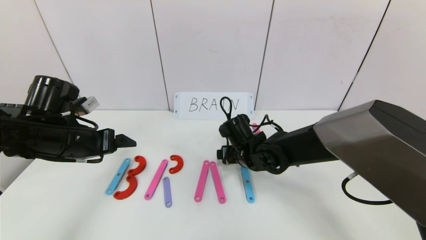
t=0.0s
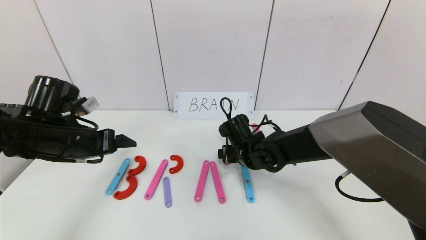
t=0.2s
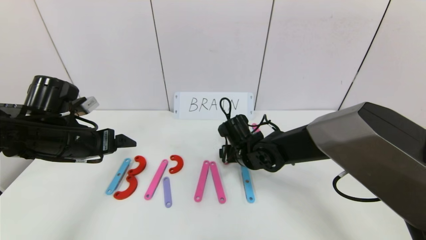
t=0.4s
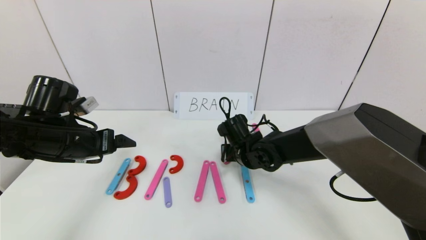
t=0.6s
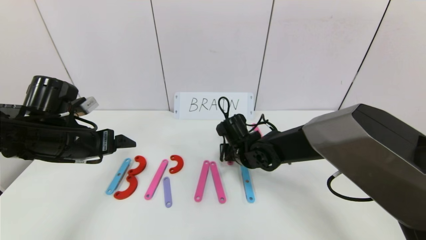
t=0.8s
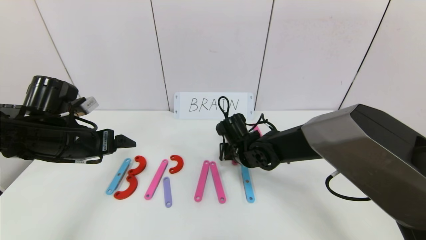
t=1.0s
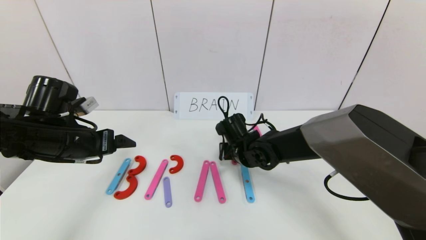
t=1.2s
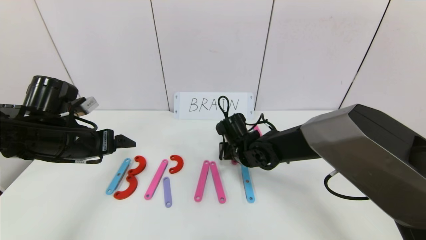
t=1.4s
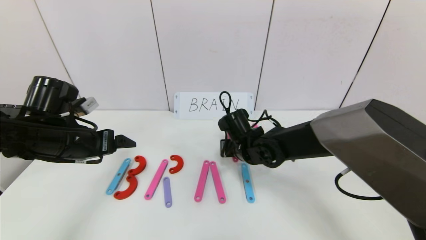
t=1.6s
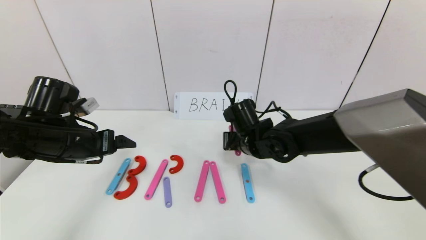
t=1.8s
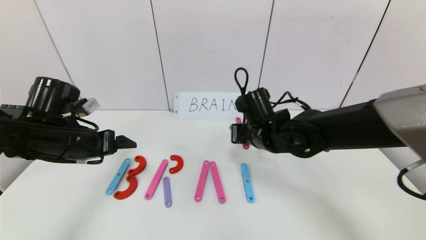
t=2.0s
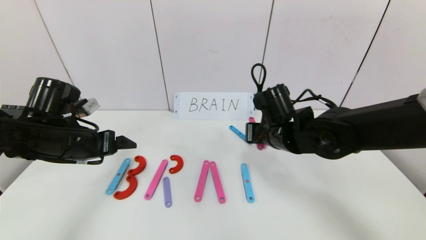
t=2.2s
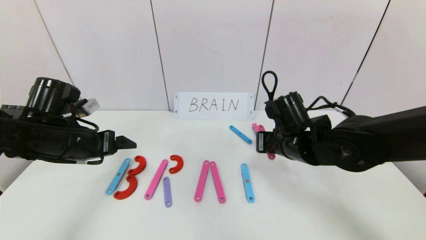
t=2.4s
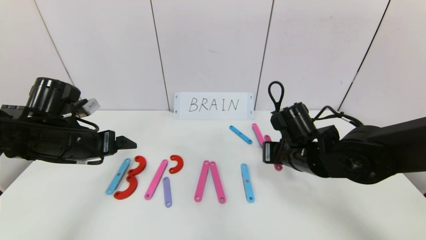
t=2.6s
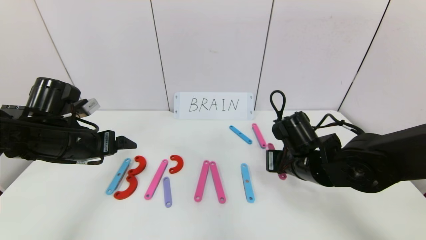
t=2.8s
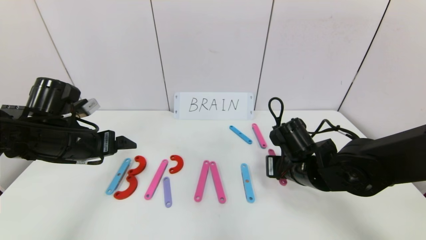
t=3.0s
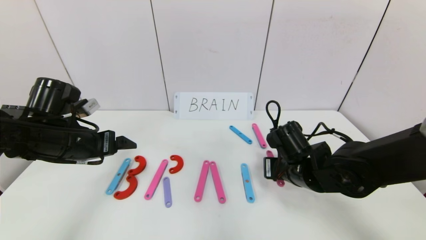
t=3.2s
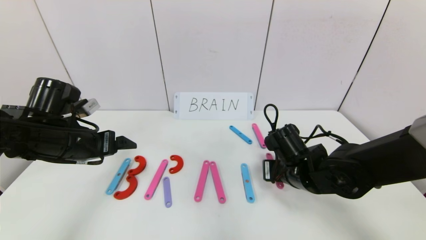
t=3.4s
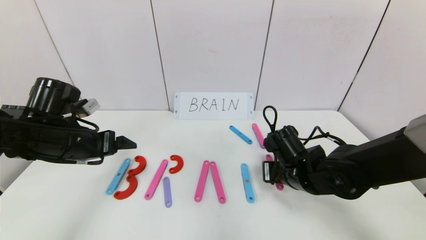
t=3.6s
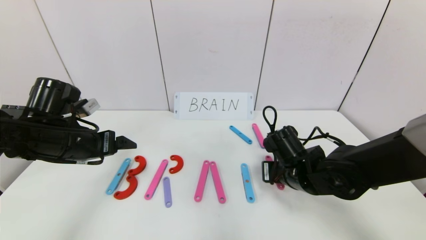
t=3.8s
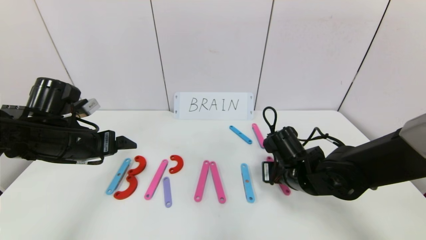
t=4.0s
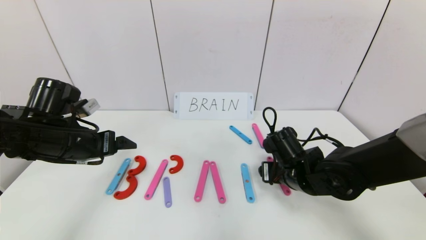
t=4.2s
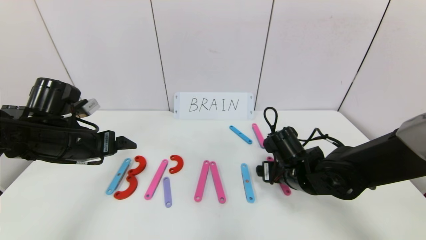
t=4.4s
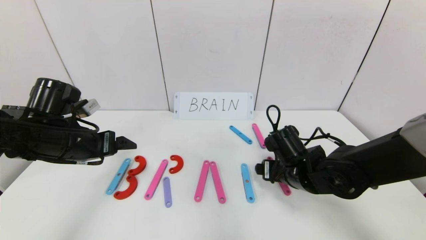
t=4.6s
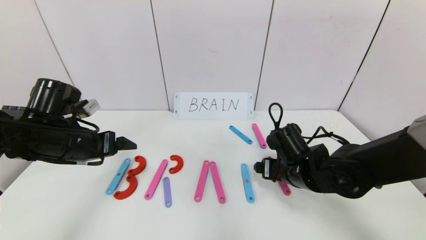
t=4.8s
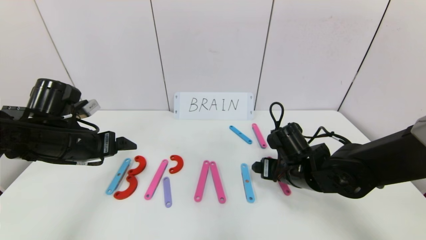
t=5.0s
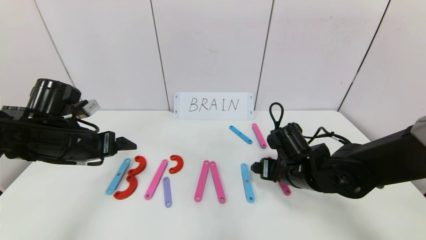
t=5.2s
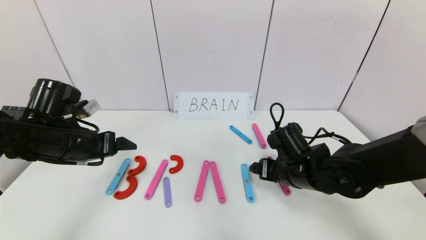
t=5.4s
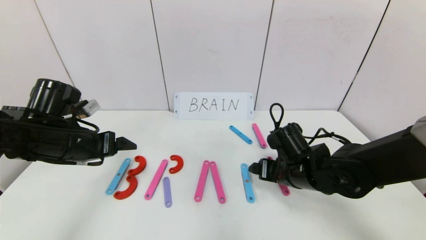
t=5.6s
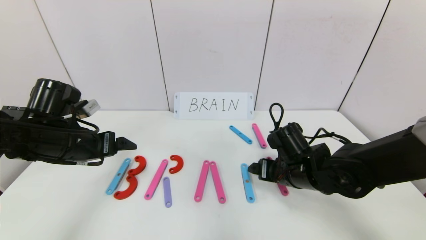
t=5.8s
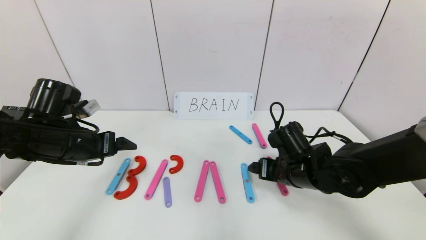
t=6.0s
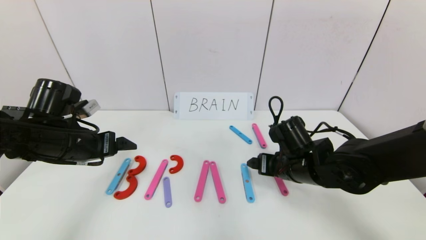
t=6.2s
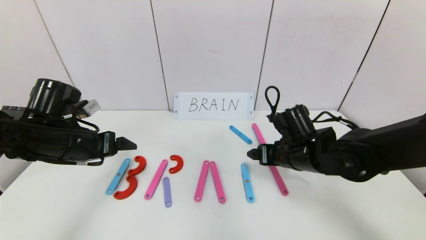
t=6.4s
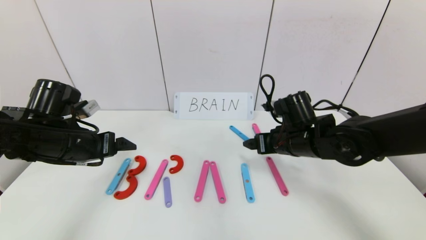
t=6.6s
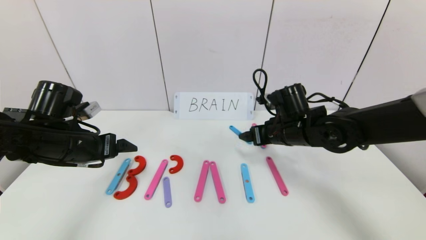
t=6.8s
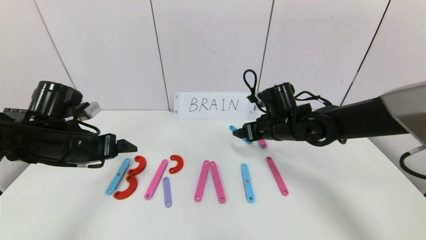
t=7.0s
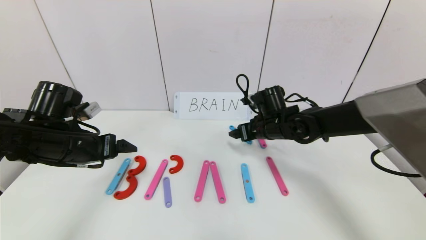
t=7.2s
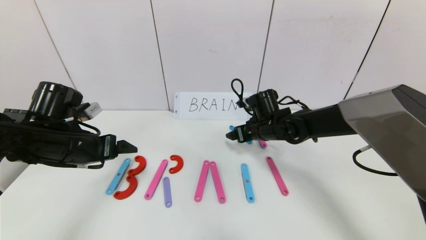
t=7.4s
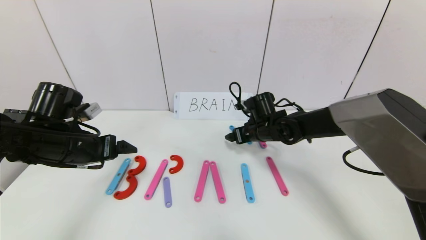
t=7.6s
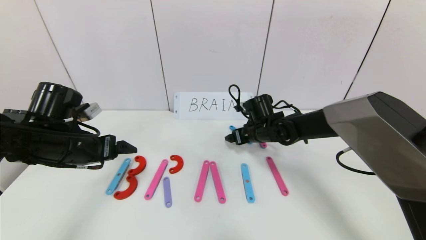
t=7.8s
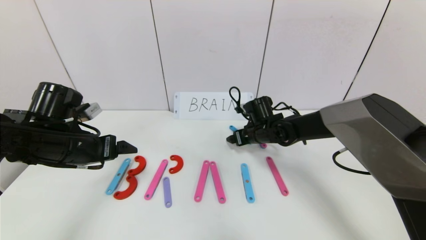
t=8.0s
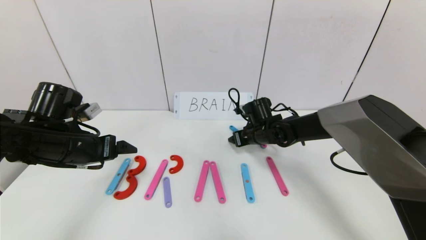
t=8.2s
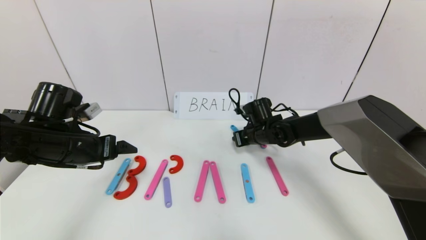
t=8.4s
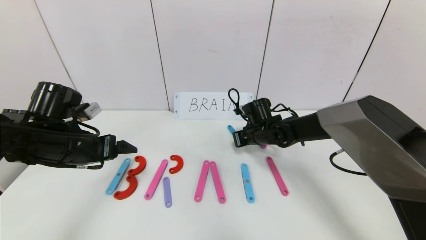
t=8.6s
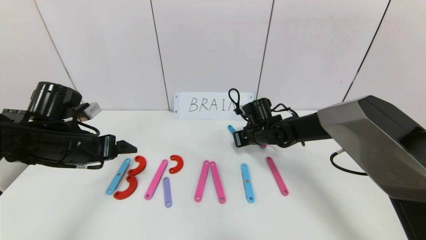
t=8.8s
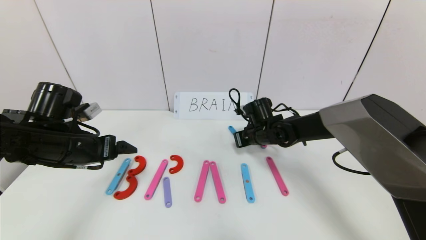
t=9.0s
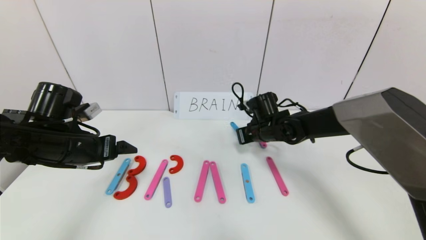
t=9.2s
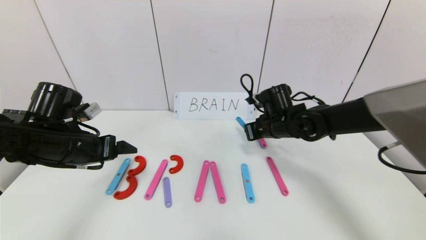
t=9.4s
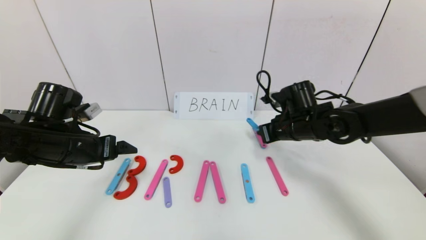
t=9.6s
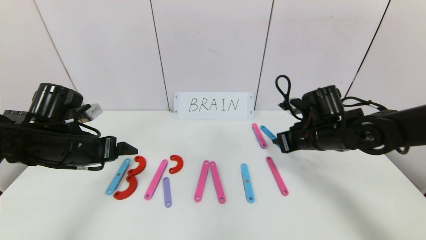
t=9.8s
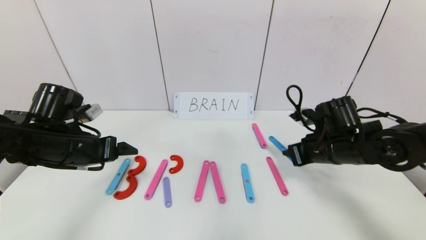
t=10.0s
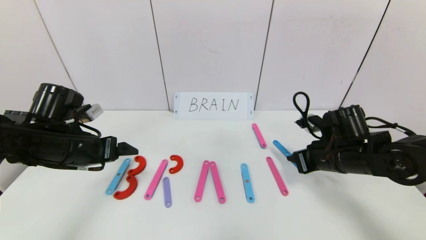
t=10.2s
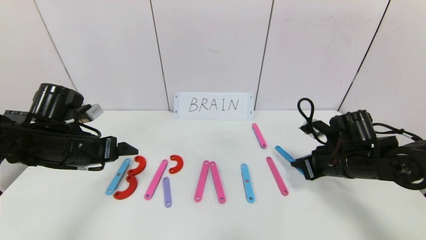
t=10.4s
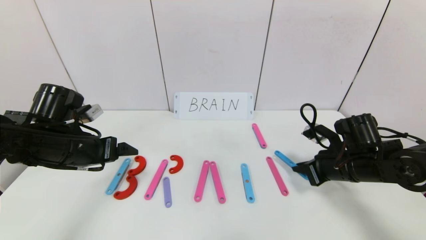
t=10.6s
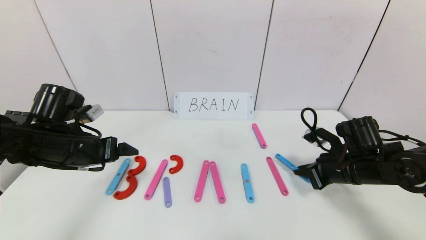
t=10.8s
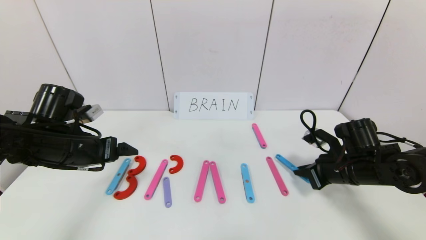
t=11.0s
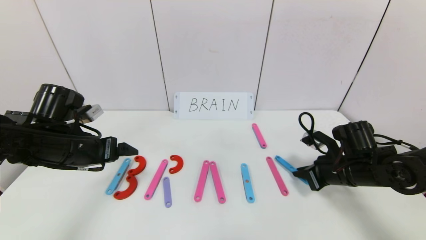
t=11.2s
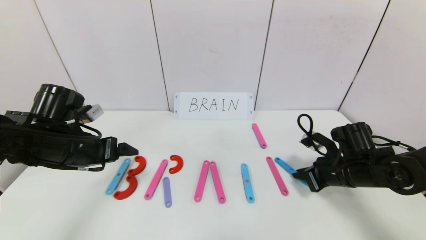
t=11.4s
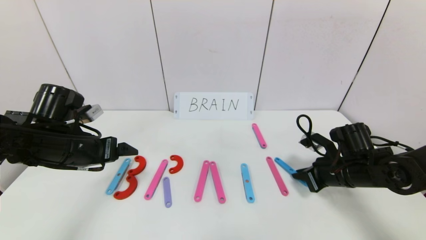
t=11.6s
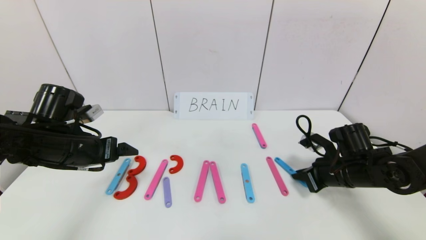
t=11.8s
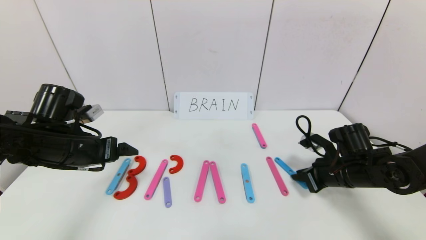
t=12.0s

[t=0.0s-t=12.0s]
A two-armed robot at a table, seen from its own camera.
Task of the whole recording: rearrange the word baai as brain.
t=0.0s to t=1.6s: The right gripper closes.
t=1.6s to t=3.0s: The right gripper moves to the right and backward, some 15 cm.
t=3.0s to t=4.4s: The right gripper opens up.
t=4.4s to t=6.0s: The grippers stay close to where they were, moving slightly.
t=6.0s to t=7.6s: The right gripper is displaced forward by roughly 15 cm.
t=7.6s to t=9.0s: The right gripper closes up.
t=9.0s to t=10.4s: The right gripper is displaced to the right and backward by about 20 cm.
t=10.4s to t=12.0s: The grippers move only a little.

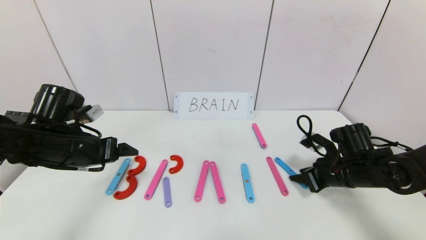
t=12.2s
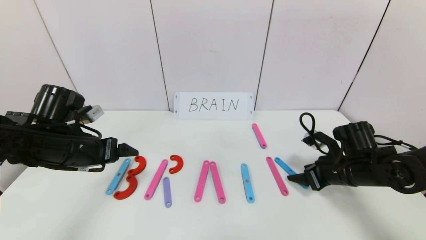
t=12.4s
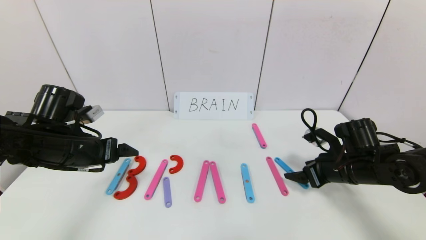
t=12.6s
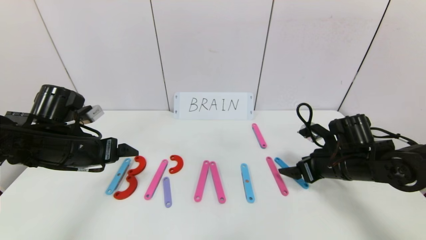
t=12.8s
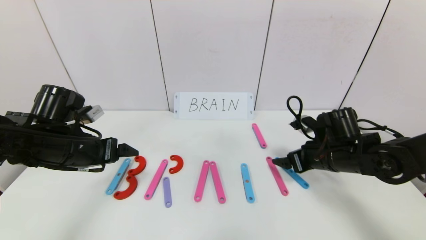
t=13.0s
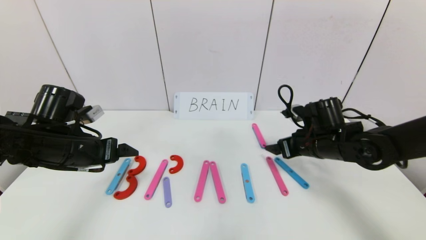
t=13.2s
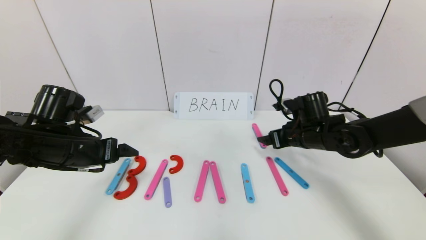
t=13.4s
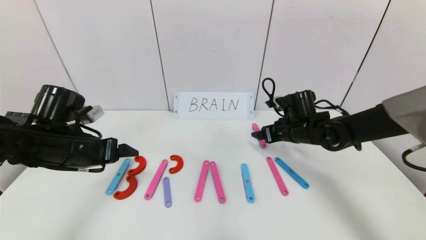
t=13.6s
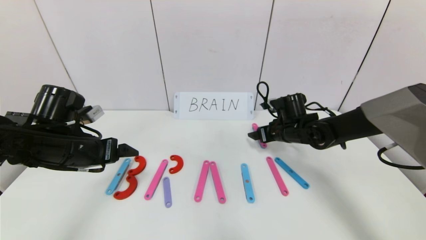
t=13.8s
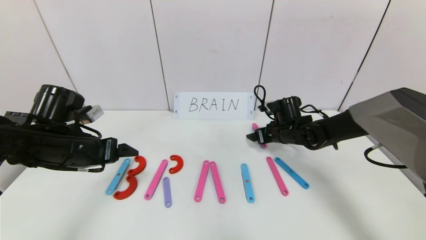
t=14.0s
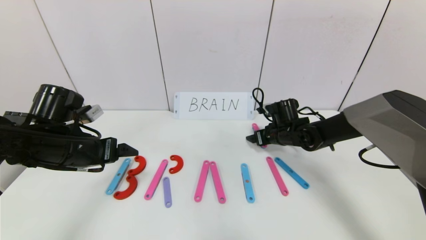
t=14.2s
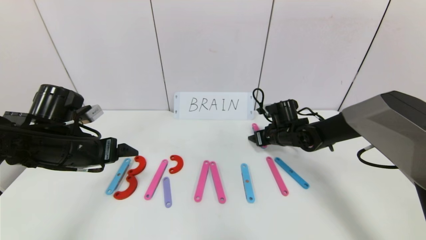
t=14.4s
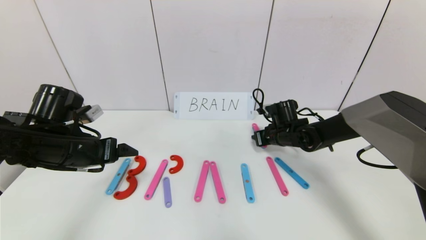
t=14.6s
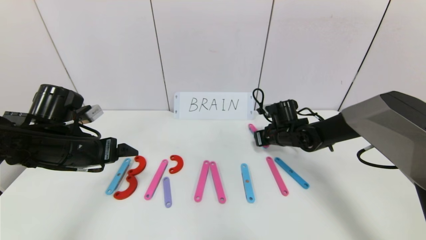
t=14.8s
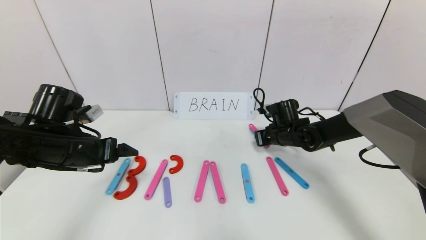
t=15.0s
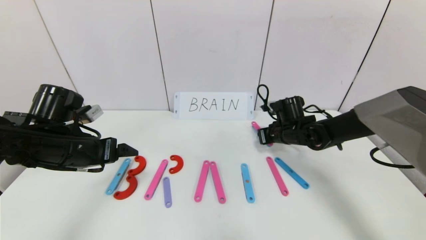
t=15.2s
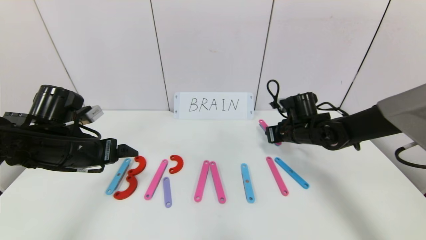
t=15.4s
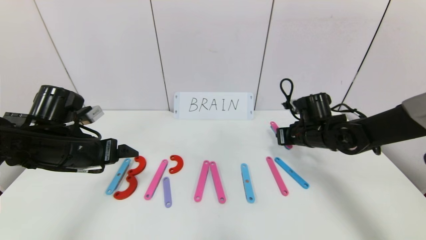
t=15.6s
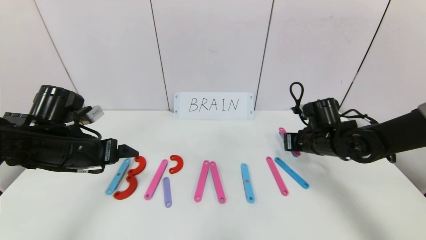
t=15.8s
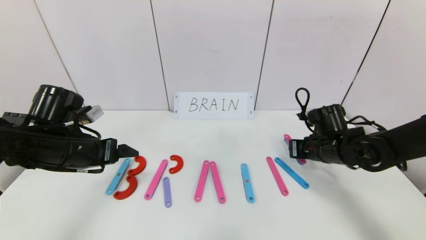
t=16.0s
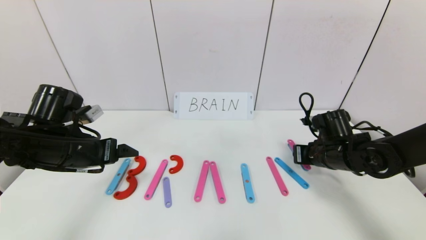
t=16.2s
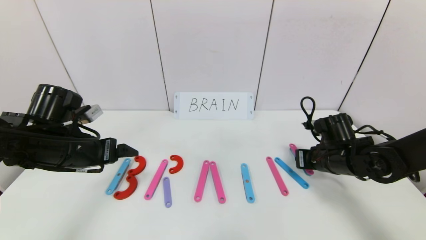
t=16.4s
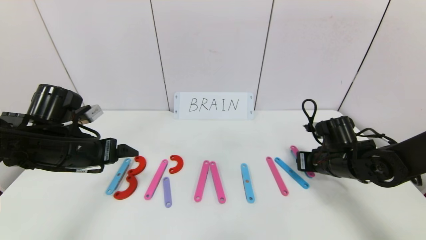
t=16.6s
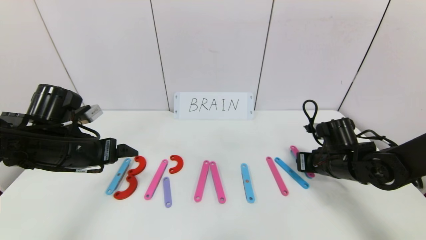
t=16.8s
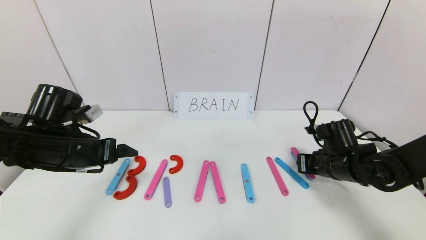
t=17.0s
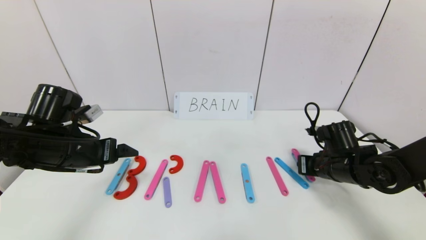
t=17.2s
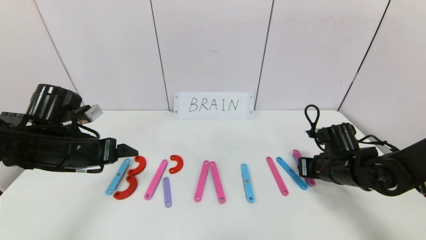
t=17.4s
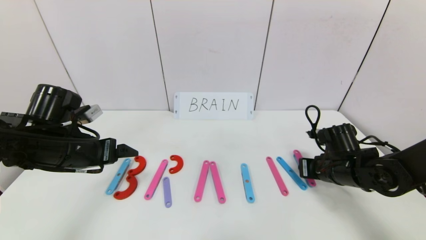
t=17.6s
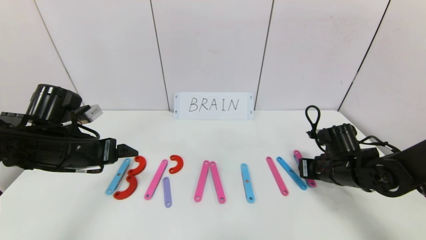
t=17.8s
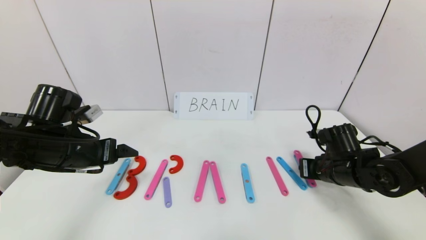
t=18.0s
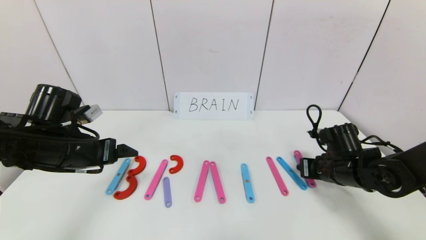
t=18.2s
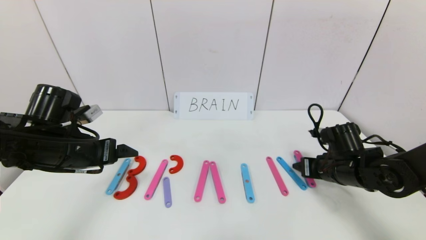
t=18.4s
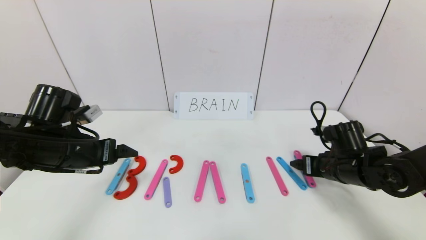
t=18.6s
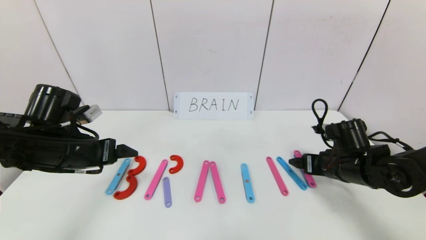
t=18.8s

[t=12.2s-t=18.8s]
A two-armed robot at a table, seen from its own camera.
Task of the whole recording: rearrange the word baai as brain.
Step, t=12.2s to t=18.6s: Place the character N after character I.
t=12.2s to t=13.8s: The right gripper heads forward and to the left, covering some 15 cm, and opens its fingers.
t=13.8s to t=15.4s: The right gripper closes up.
t=15.4s to t=17.2s: The right gripper is displaced backward by approximately 10 cm.
t=17.2s to t=18.8s: The right gripper opens its fingers.
